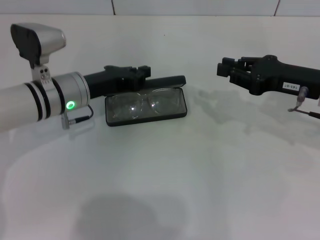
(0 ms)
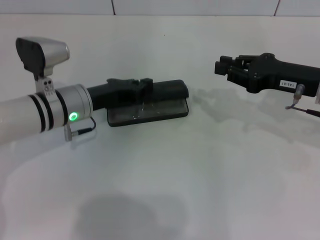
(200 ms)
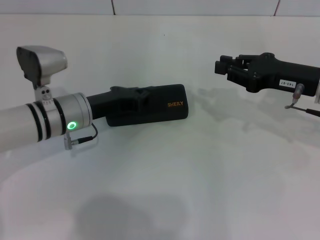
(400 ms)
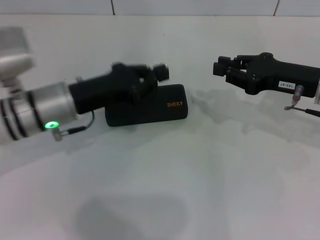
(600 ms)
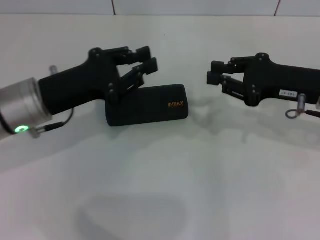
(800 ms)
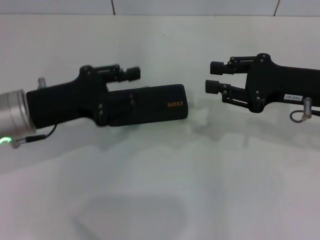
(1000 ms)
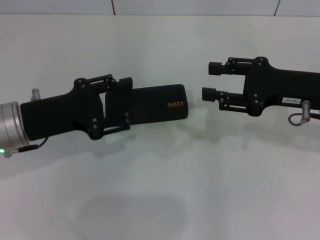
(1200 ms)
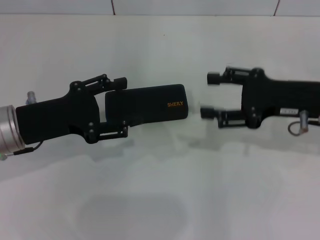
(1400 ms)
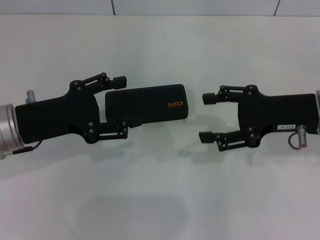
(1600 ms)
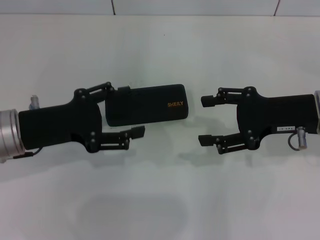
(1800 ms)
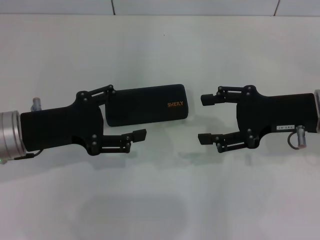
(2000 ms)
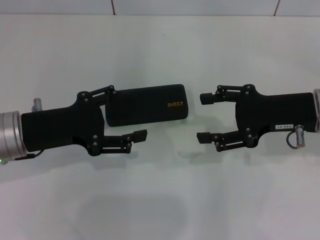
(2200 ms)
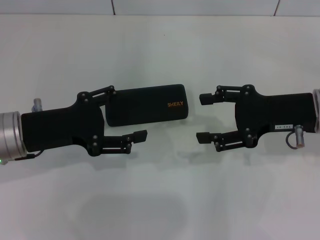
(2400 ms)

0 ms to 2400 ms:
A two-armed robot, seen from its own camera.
0 ms to 1200 ms: The left gripper goes some 10 cm backward and to the left, and opens up.
1200 ms to 2400 ms: The right gripper opens up. The left gripper opens.

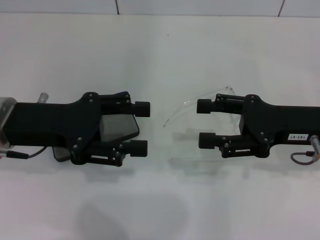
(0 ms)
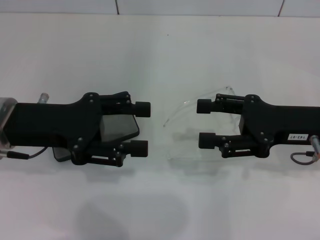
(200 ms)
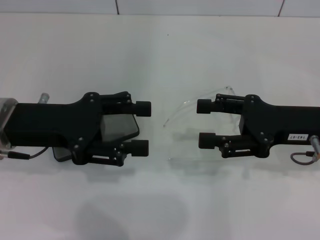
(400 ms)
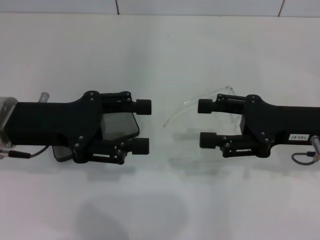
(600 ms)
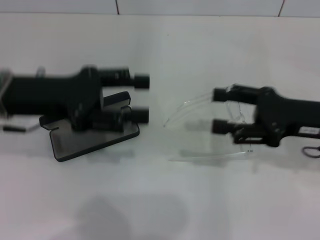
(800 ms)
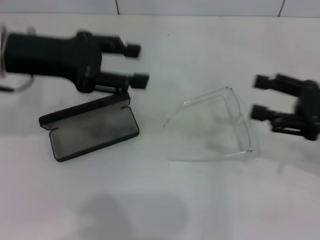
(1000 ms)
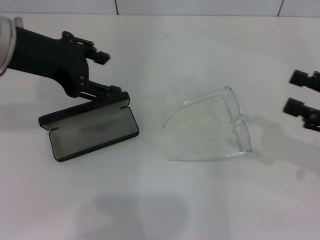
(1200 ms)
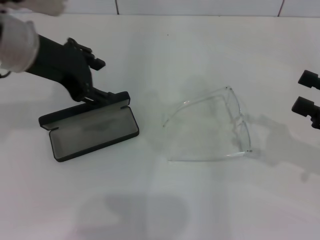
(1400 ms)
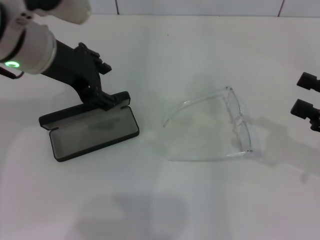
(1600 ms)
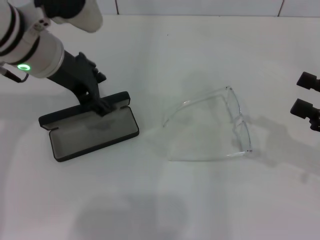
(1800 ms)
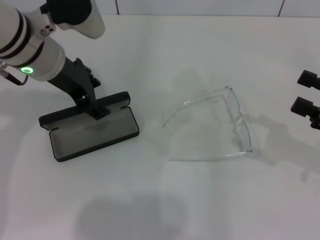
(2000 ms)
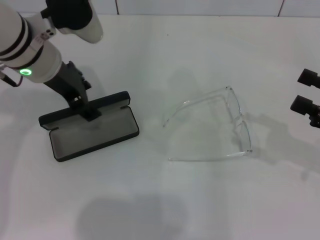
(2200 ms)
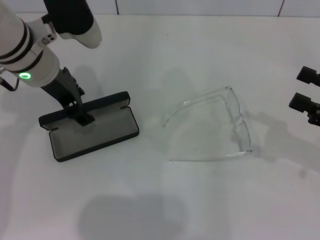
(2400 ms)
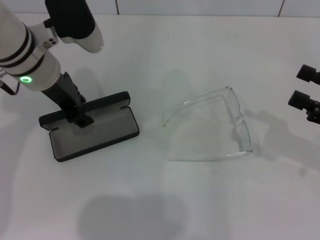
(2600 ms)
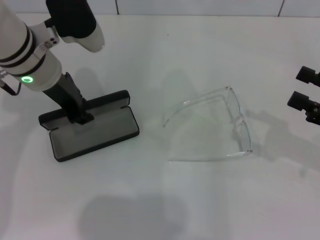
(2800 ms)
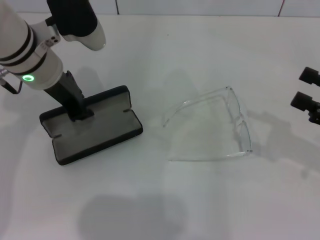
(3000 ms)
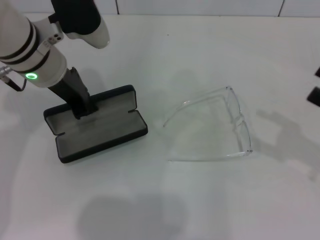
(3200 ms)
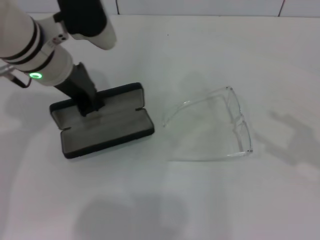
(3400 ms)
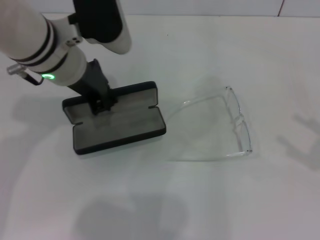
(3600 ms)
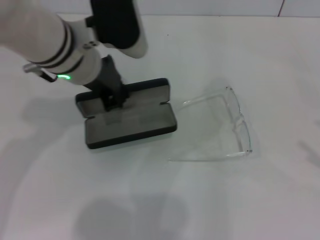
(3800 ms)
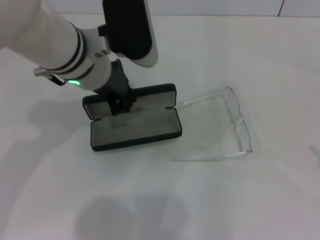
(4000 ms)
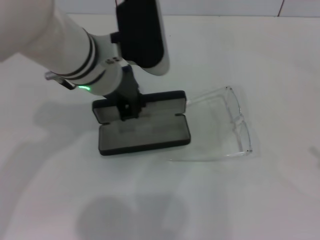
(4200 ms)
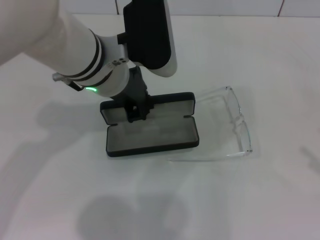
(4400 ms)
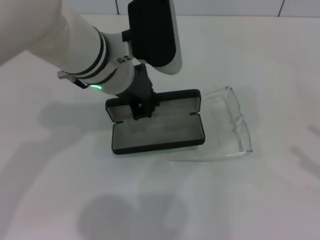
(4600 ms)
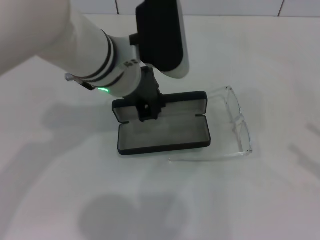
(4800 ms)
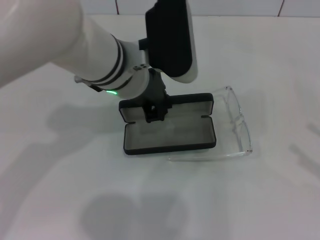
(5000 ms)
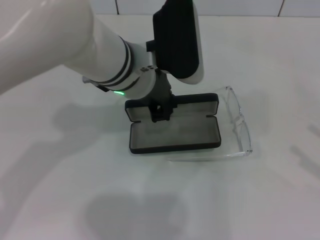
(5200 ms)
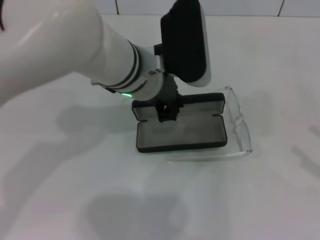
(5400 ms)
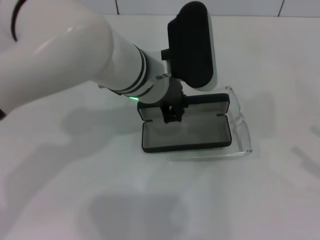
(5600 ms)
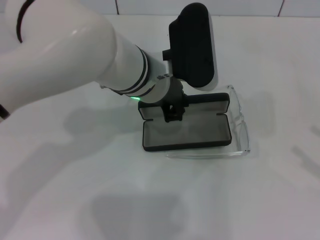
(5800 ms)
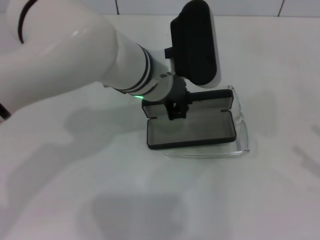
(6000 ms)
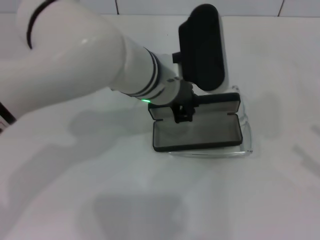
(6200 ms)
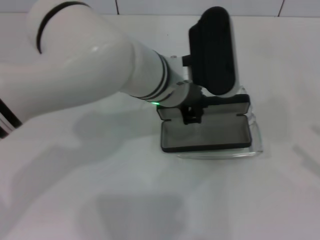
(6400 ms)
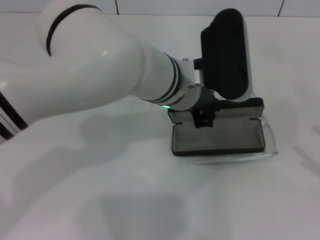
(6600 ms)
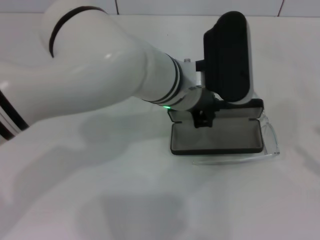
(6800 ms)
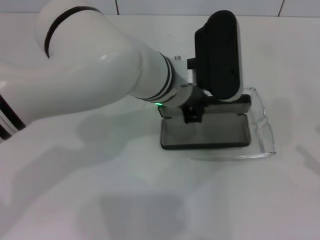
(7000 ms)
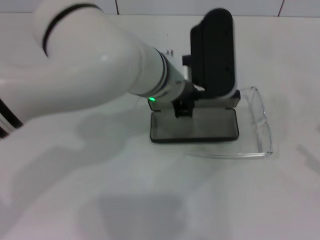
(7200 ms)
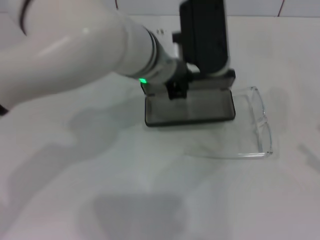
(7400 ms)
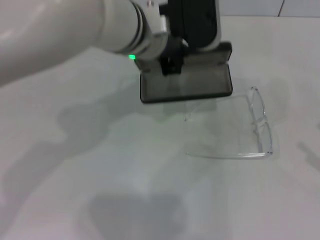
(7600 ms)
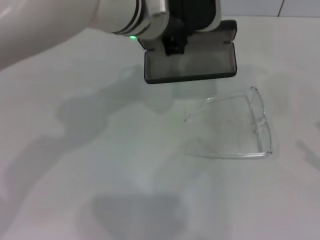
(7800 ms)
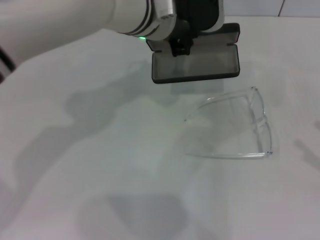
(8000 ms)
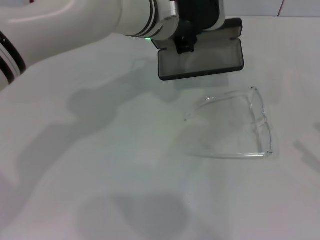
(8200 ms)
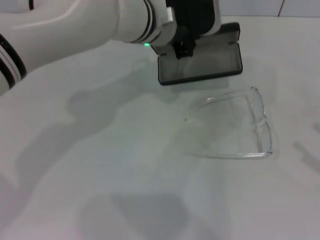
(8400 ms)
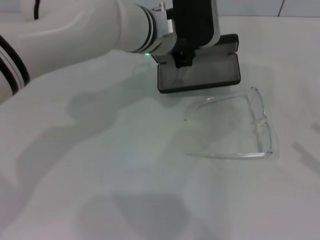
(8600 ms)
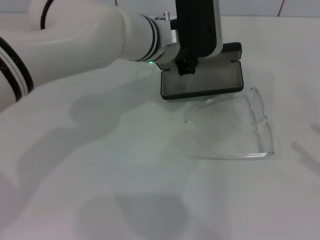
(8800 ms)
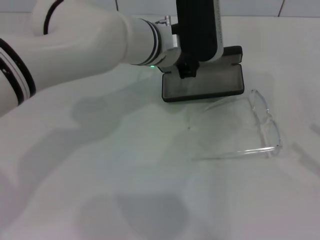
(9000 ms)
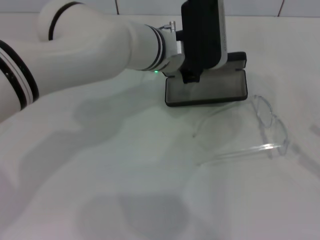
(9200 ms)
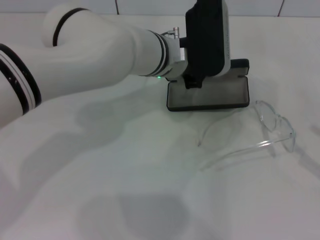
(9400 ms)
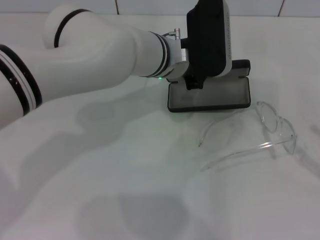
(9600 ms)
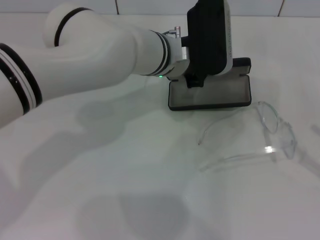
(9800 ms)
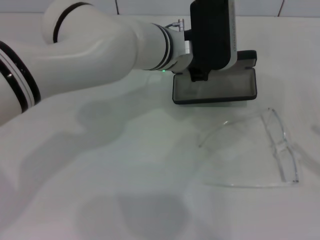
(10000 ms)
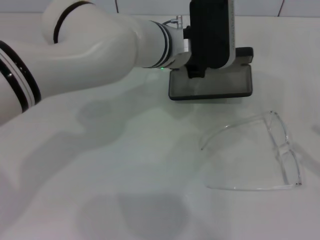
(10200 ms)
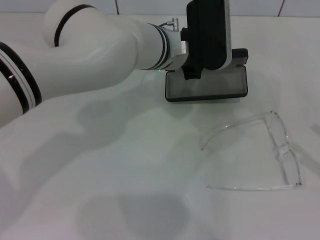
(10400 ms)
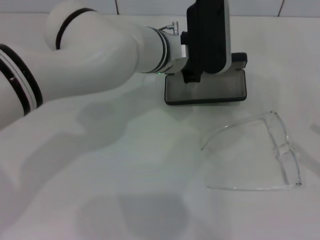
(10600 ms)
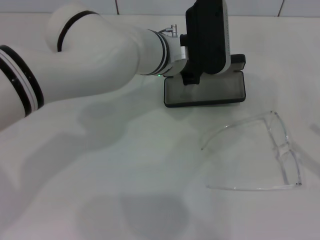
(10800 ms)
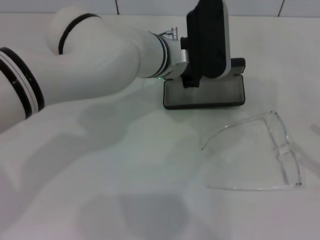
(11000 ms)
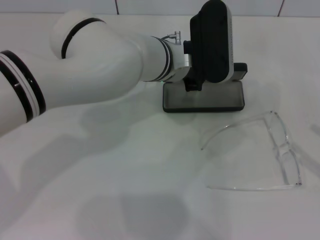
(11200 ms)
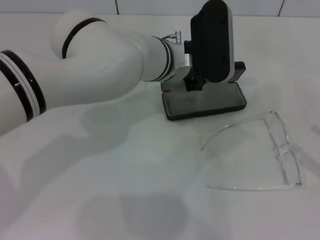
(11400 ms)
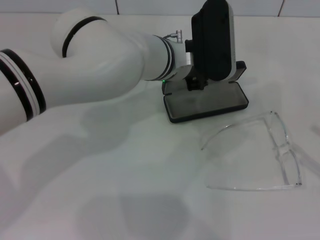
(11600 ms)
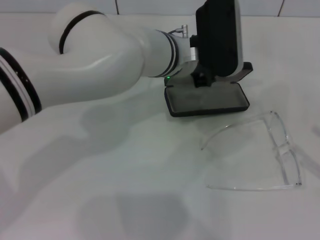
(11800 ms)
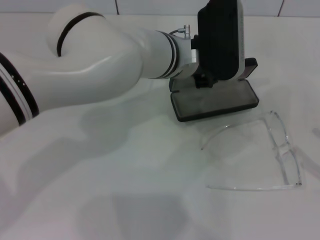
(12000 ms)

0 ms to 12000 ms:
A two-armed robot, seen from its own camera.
Step, 0 ms to 2600 ms: Grab the glasses case with your left hand.
0 ms to 1600 ms: The left gripper moves upward, to the right and forward, approximately 10 cm. Meanwhile the right gripper goes roughly 10 cm to the right.
1600 ms to 3000 ms: The left gripper is displaced downward by some 5 cm, and closes up.
3000 ms to 4400 ms: The right gripper goes about 10 cm backward and to the right; the left gripper travels to the right by roughly 10 cm, and closes its fingers.
4400 ms to 6000 ms: The left gripper shifts approximately 5 cm to the right.
6000 ms to 7600 ms: The left gripper is displaced upward by approximately 5 cm.
7600 ms to 9000 ms: The left gripper is displaced downward by some 5 cm.
9000 ms to 10400 ms: There are only small adjustments of the grippers.
10400 ms to 12000 ms: The left gripper opens.

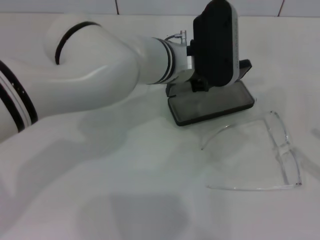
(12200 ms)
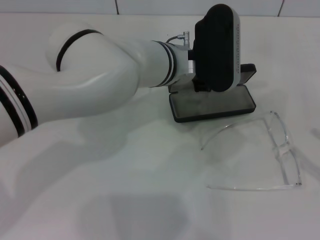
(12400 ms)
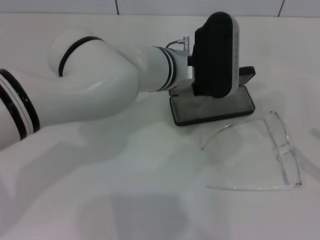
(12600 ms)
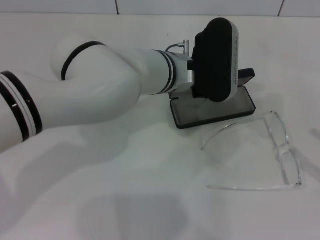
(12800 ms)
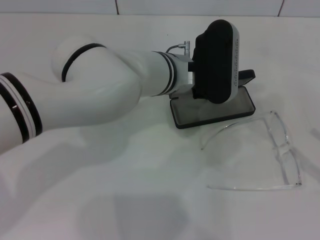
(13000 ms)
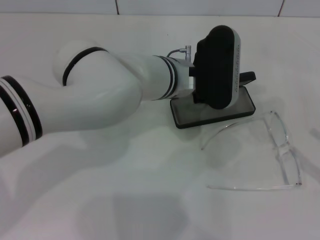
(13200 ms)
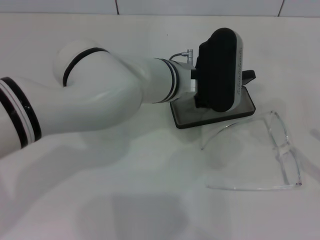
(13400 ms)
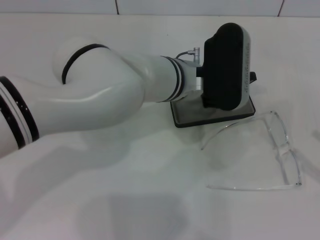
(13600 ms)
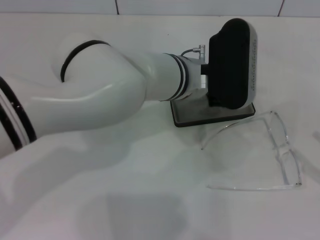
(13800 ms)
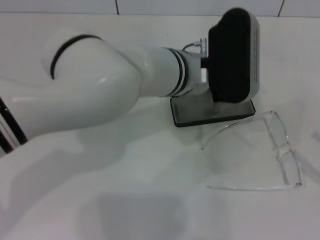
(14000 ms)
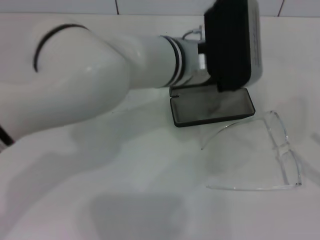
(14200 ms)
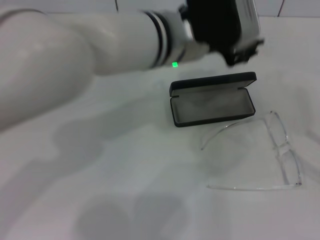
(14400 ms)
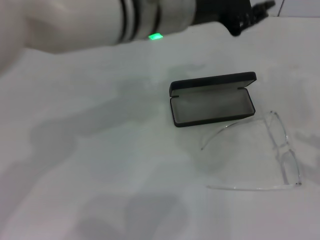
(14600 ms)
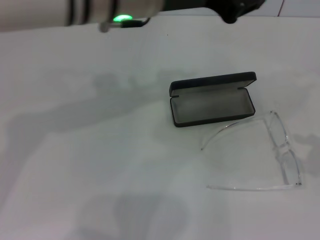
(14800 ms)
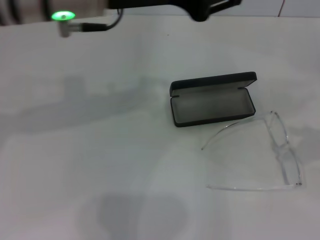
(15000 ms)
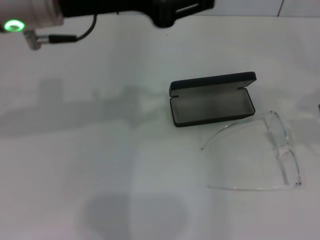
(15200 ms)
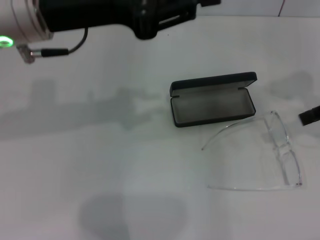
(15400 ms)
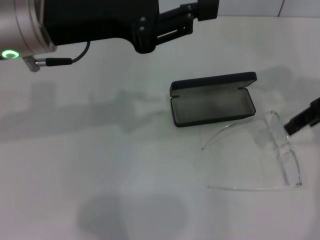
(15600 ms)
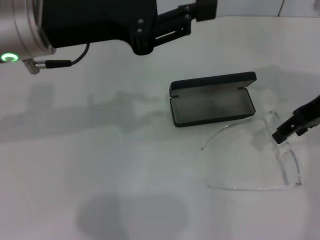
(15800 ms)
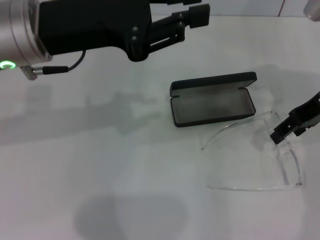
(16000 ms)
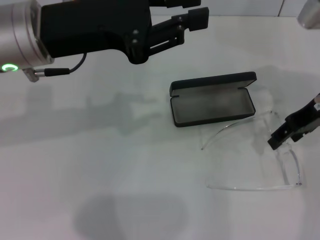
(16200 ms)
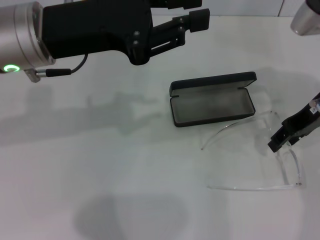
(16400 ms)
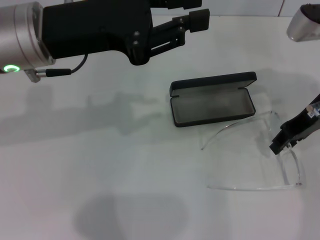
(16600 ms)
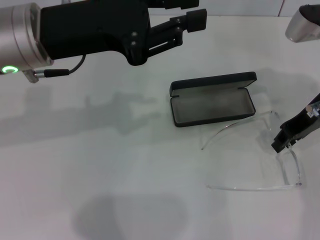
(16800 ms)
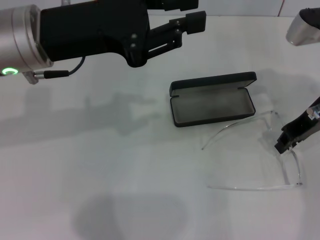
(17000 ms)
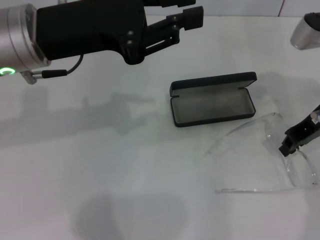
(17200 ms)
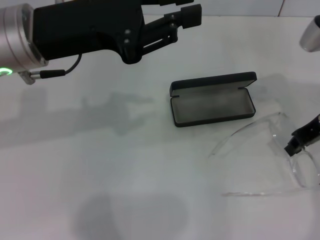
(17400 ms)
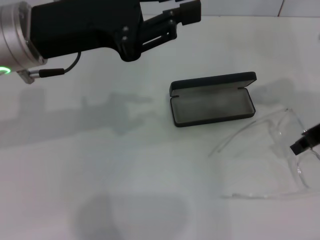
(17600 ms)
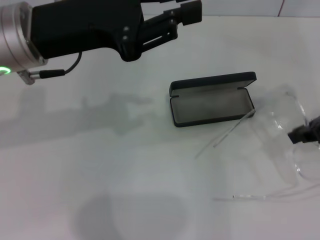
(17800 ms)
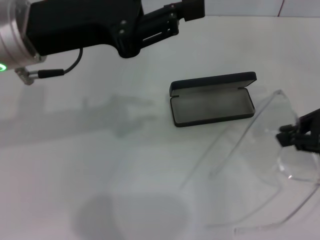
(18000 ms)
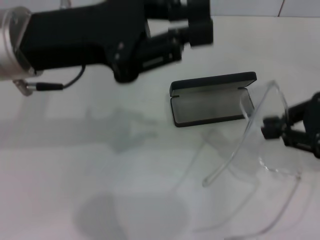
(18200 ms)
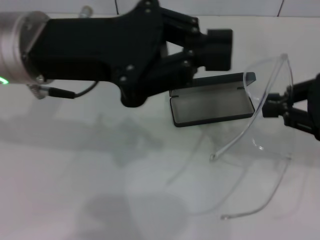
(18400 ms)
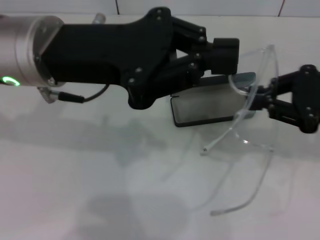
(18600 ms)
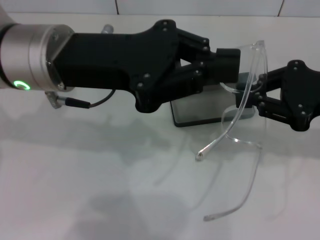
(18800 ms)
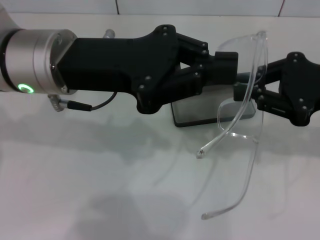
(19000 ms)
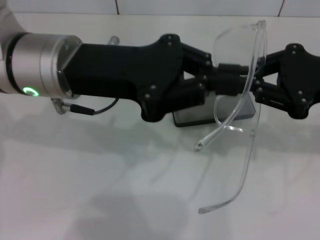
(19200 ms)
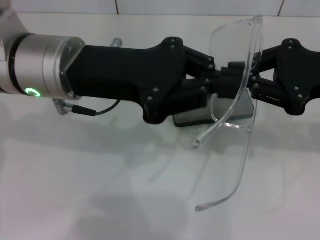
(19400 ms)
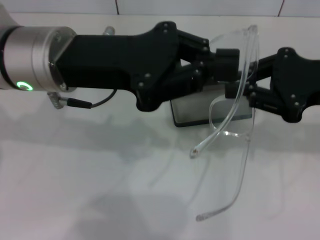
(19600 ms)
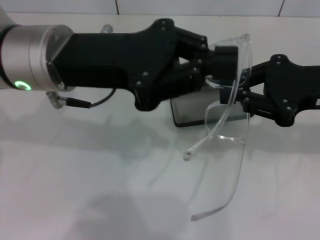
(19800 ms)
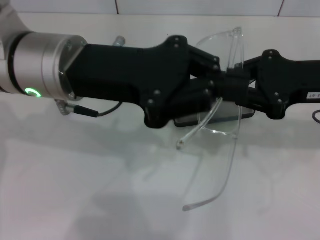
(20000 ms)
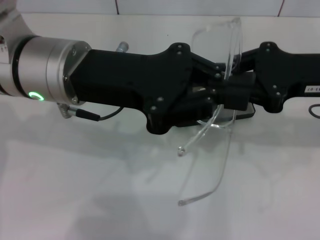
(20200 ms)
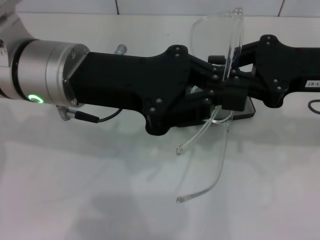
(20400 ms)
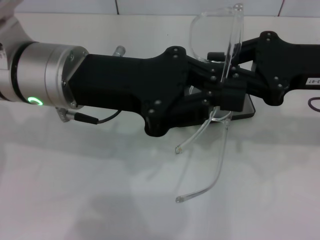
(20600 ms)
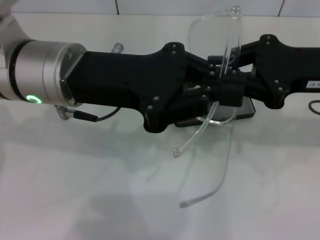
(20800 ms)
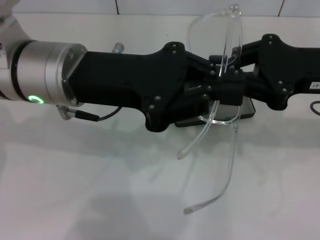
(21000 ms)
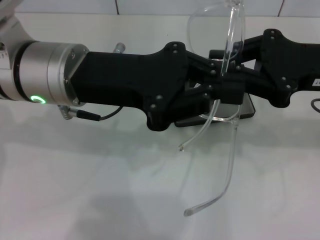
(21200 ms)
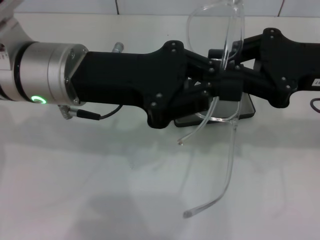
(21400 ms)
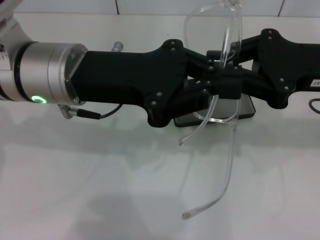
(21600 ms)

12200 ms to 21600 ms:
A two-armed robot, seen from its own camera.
Step, 13800 ms to 17000 ms: Grab the eyeglass frame with your right hand.
12200 ms to 13800 ms: The grippers make only small movements.
13800 ms to 15400 ms: The left gripper heads to the left and upward, covering some 20 cm. Meanwhile the right gripper is displaced forward, upward and to the left by about 25 cm.
15400 ms to 17000 ms: The right gripper moves downward and to the left, approximately 10 cm, and closes.
17000 ms to 18400 ms: The right gripper heads backward and to the right, covering some 10 cm.
18400 ms to 20000 ms: The right gripper shifts by roughly 5 cm.
20000 ms to 21600 ms: The grippers move only a little.
